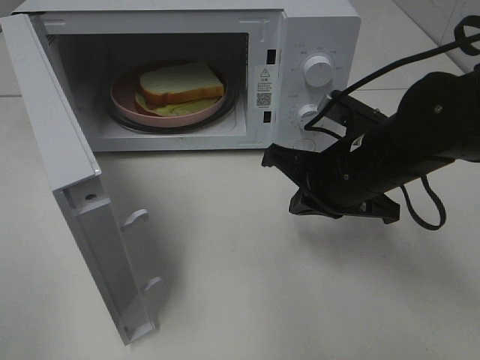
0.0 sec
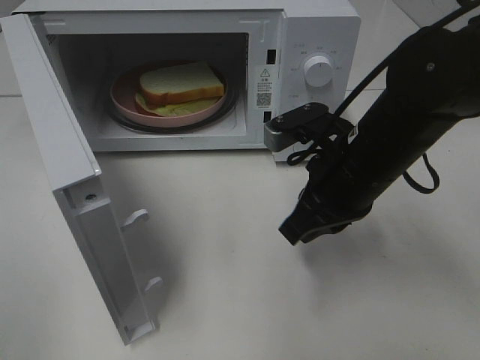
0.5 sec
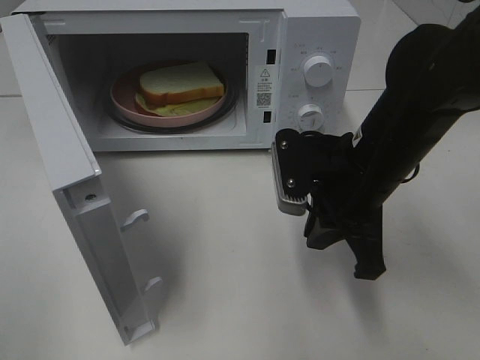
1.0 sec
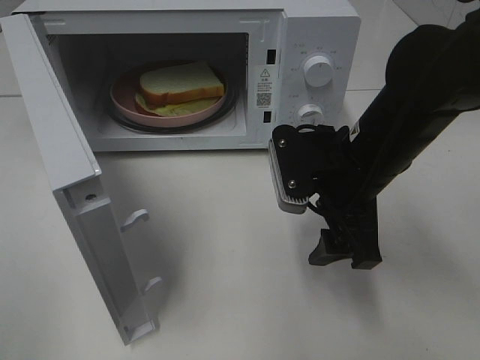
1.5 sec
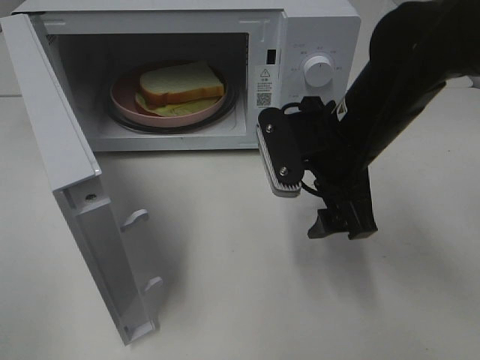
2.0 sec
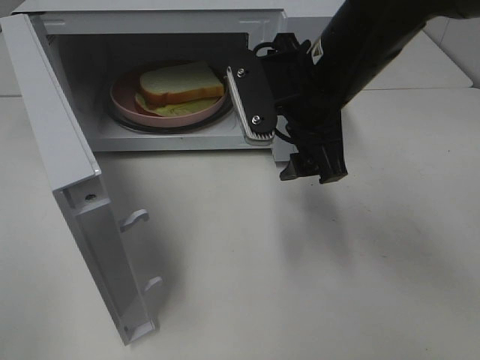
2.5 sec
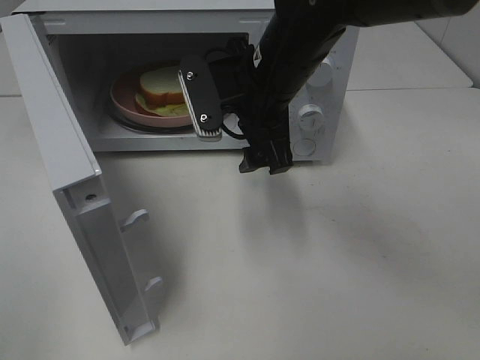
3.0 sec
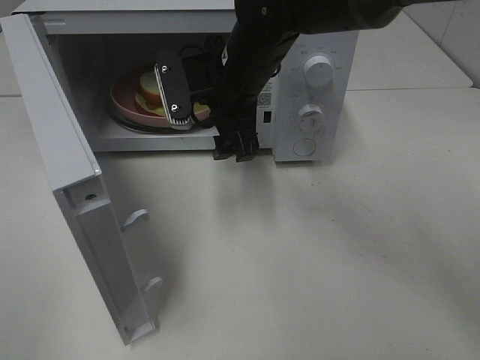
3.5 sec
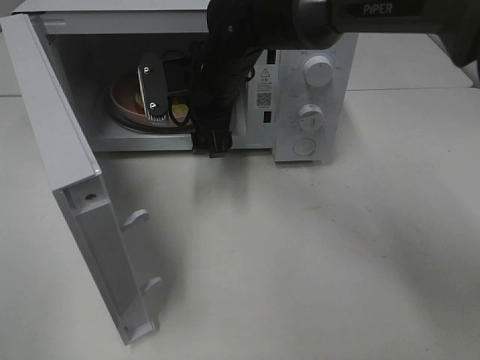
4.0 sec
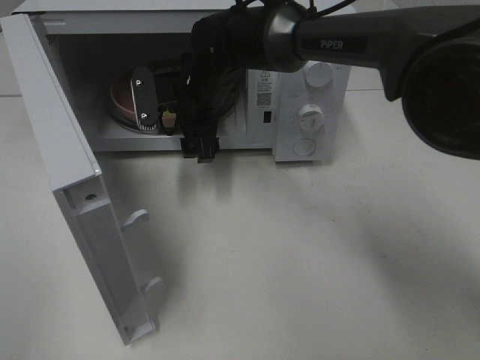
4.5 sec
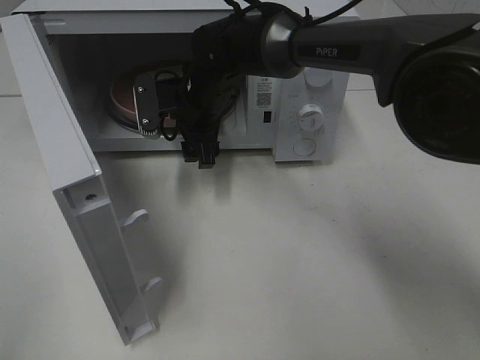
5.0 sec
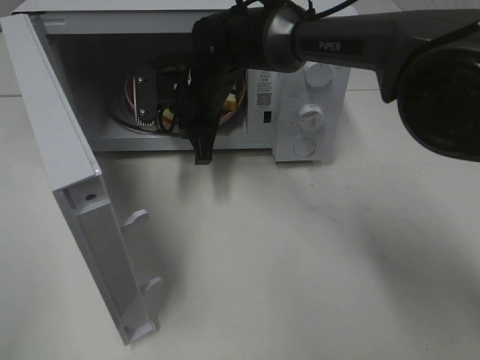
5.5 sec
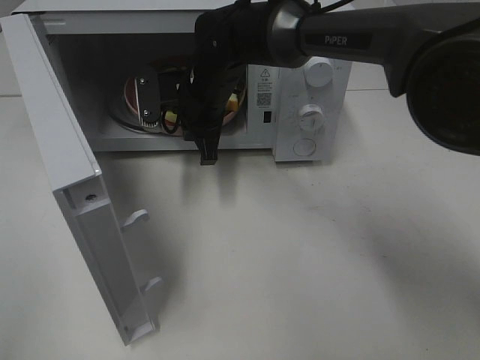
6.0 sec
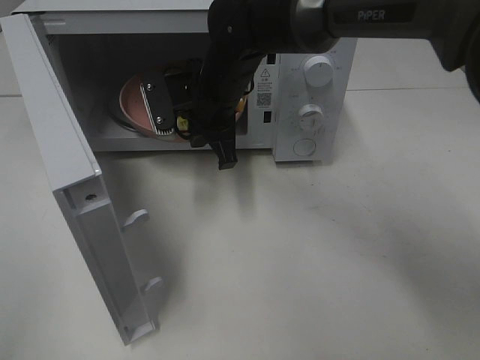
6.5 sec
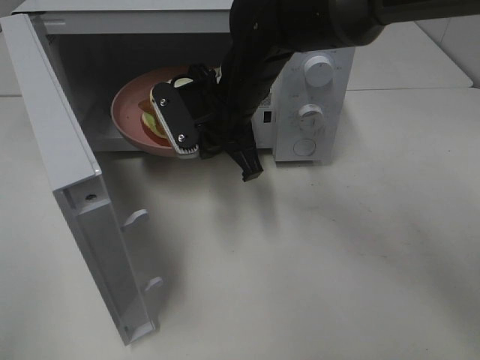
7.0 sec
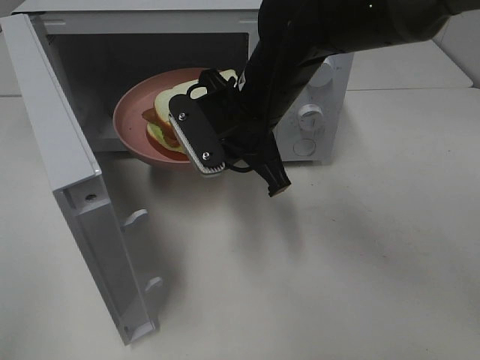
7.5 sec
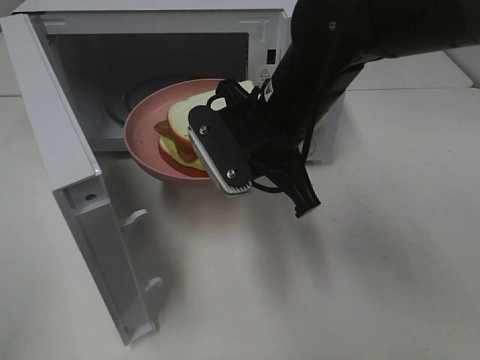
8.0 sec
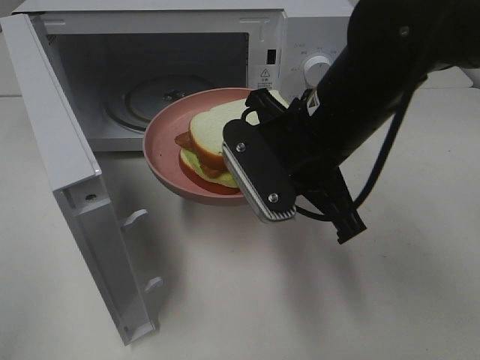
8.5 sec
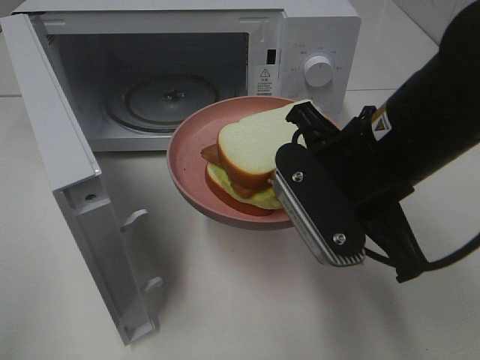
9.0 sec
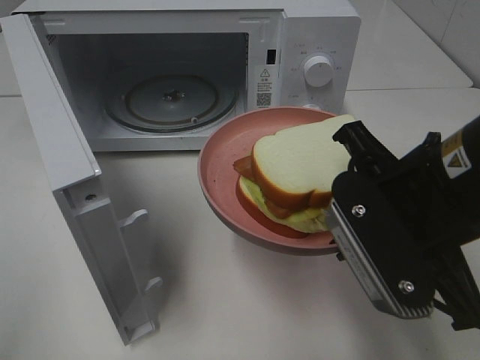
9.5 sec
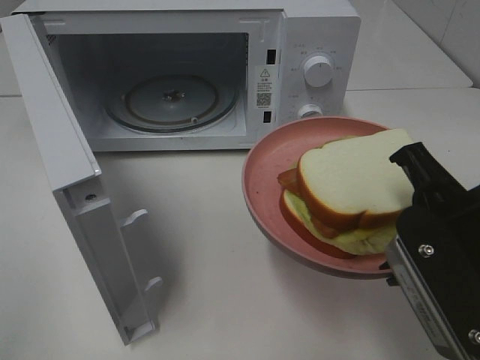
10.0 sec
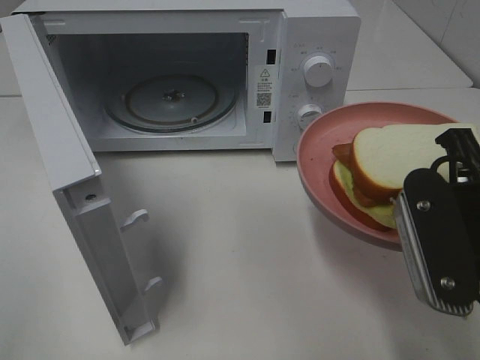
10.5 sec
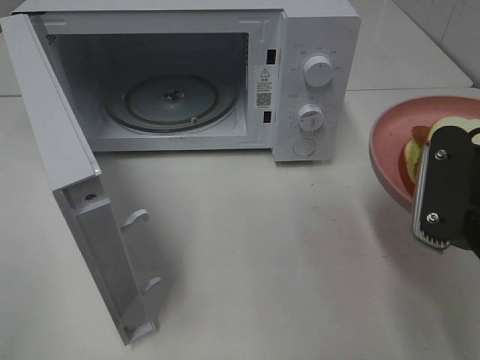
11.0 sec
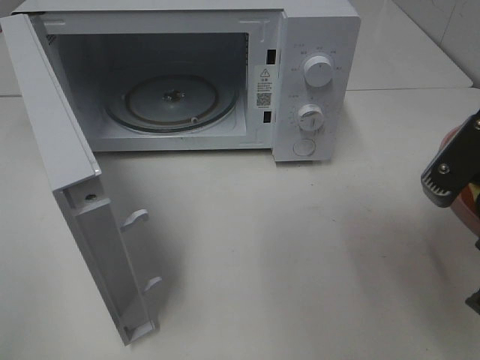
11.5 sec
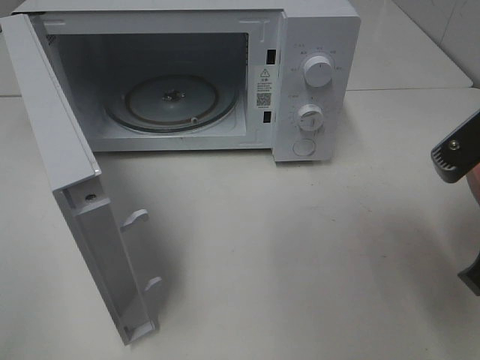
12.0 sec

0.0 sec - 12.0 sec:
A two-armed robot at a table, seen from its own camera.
Task of the whole recording: Heat Sandwich.
Step, 0.0 sec - 5.0 sec: Right hand: grab the plate with the sandwich.
0.0 sec - 2.0 sec: The right gripper opens.
2.0 sec - 4.0 sec: The right gripper heads to the left and forward, covering approximately 20 cm.
4.0 sec - 6.0 sec: The right gripper closes up.
6.0 sec - 8.0 sec: The right gripper is displaced backward and to the right by roughly 15 cm.
8.0 sec - 10.0 sec: The right gripper is displaced backward and to the right by about 20 cm.

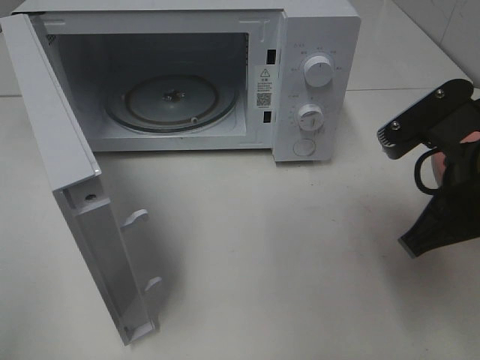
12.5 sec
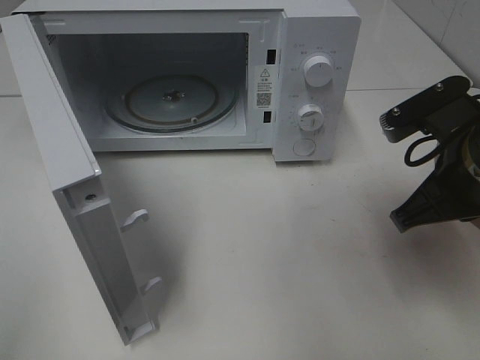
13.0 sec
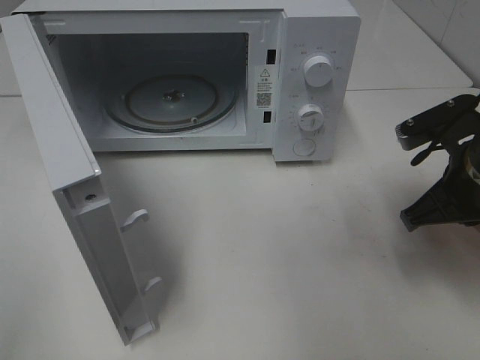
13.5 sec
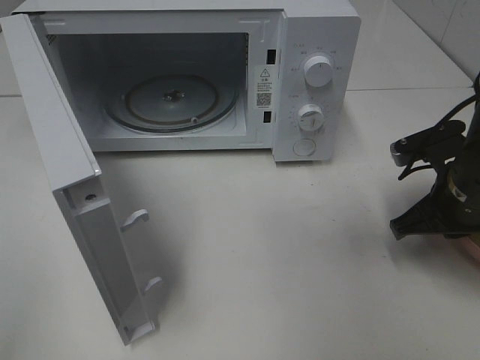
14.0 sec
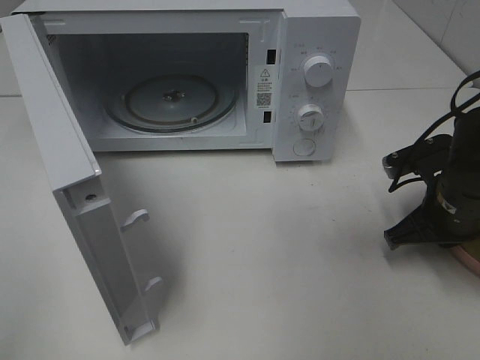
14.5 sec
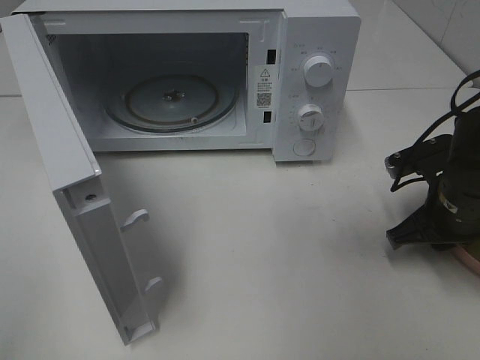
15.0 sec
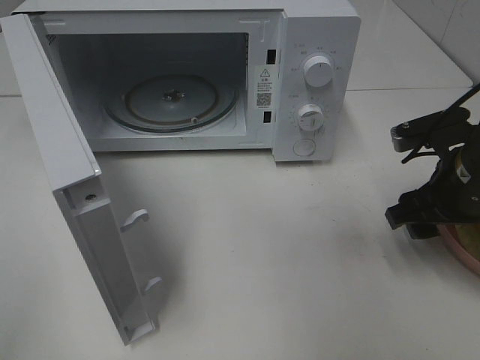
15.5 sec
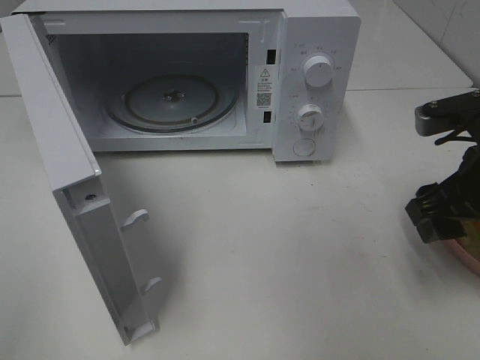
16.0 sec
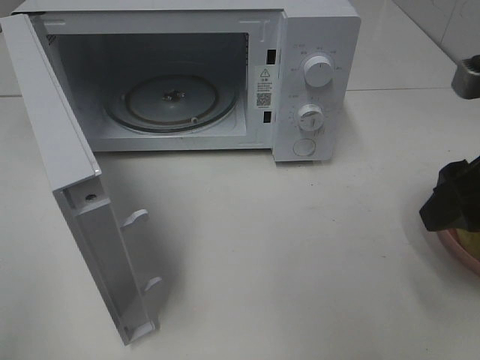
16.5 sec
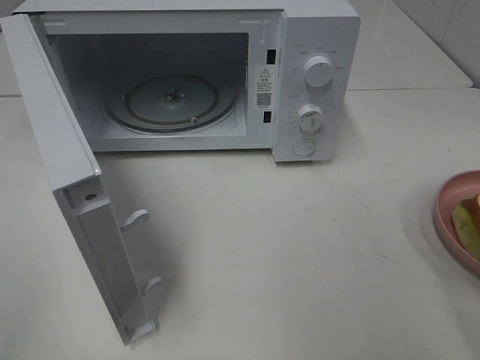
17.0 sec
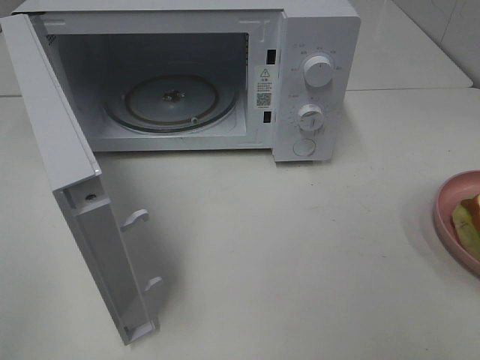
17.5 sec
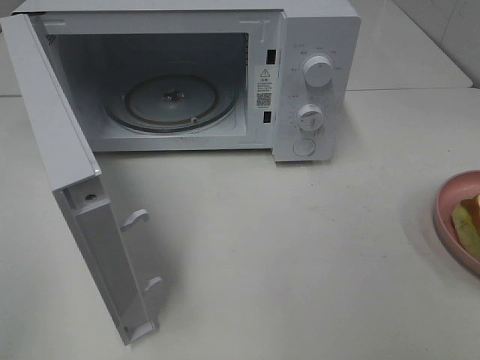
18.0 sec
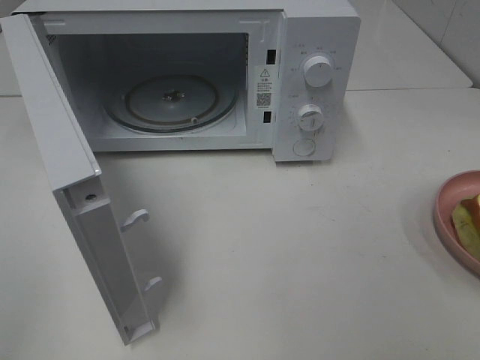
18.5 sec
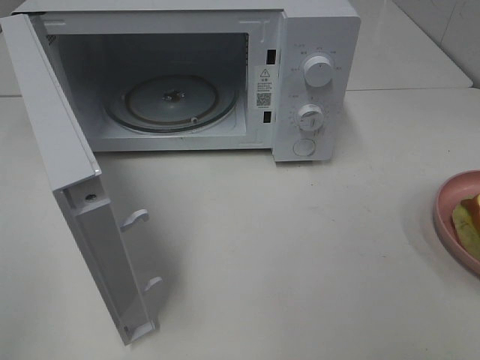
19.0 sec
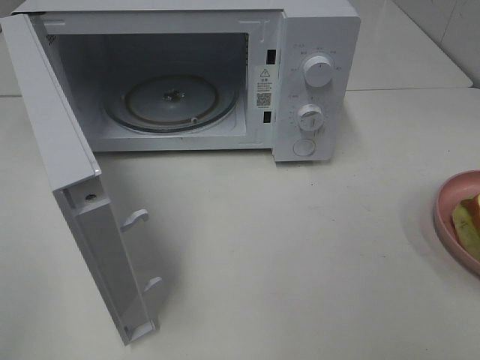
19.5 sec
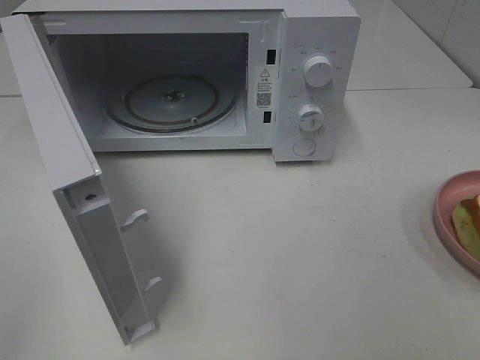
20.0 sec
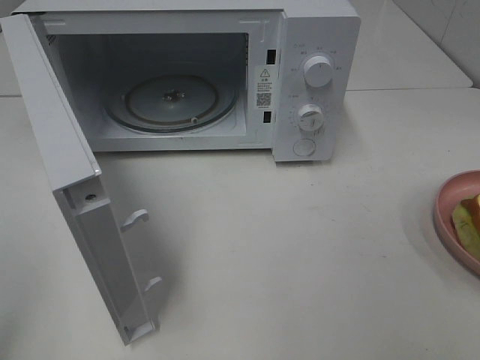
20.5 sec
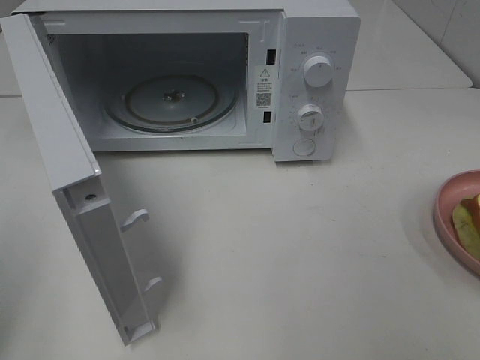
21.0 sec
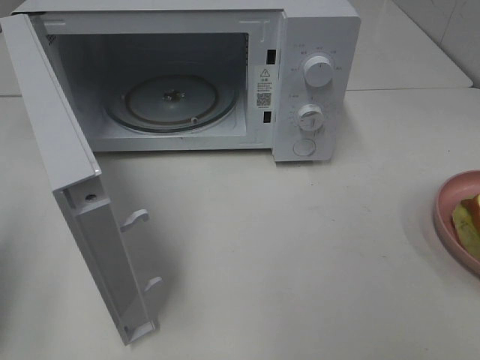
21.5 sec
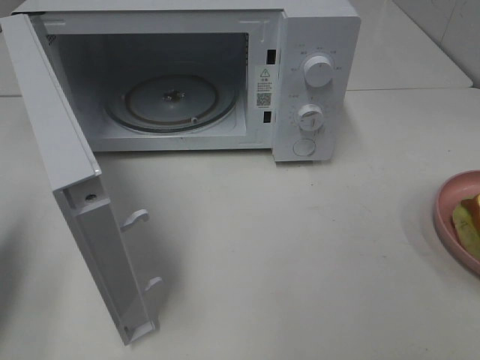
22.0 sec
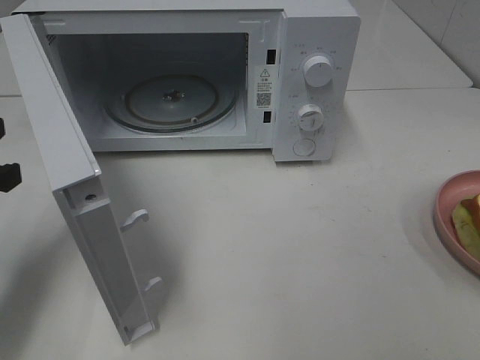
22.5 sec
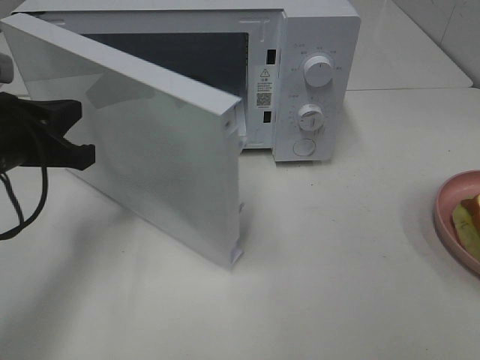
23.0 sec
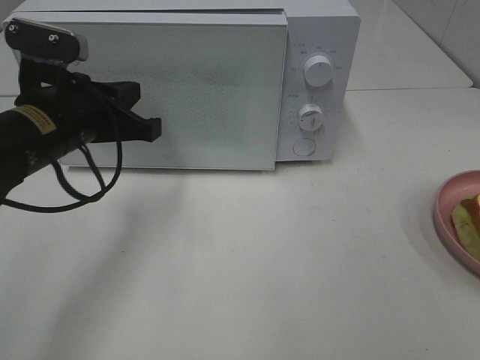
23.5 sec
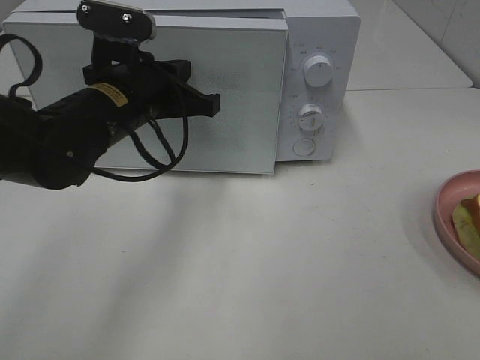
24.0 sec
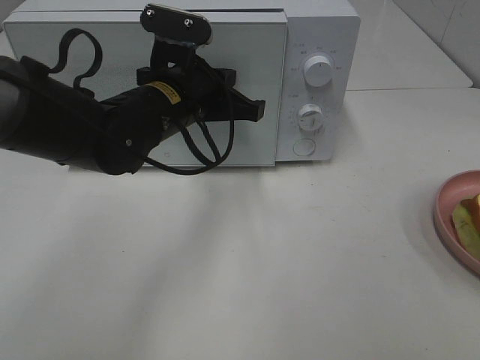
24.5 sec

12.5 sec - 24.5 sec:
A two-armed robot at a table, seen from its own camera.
Task of the whole recording: Heat Sandwich.
Step, 12.5 sec - 16.0 sec: Right hand: place the plate on the table.
12.5 sec - 14.5 sec: The right gripper shifts about 15 cm downward, forward and to the right.
14.5 sec - 16.5 sec: The right gripper goes roughly 20 cm upward and backward, and opens.
16.5 sec - 18.5 sec: The right gripper shifts some 20 cm backward.
20.5 sec - 22.5 sec: The left gripper shifts some 20 cm forward and downward, and closes.
22.5 sec - 24.5 sec: The left gripper heads to the right and forward, covering some 25 cm.

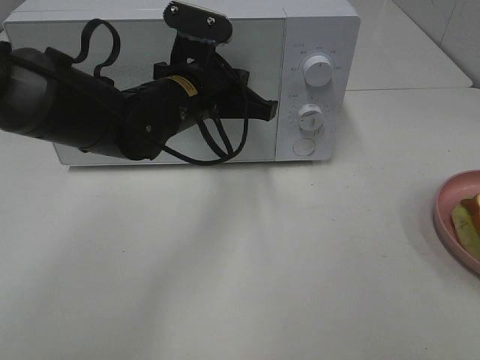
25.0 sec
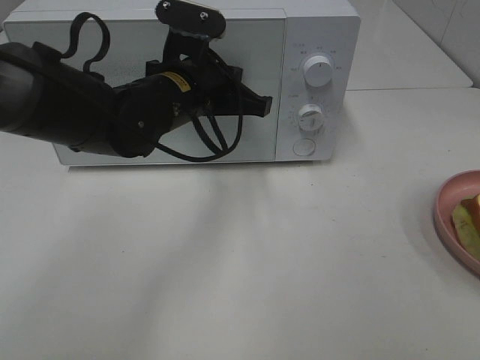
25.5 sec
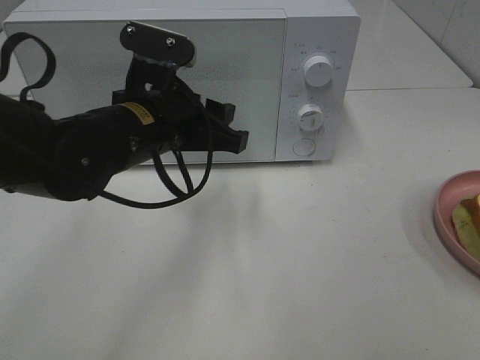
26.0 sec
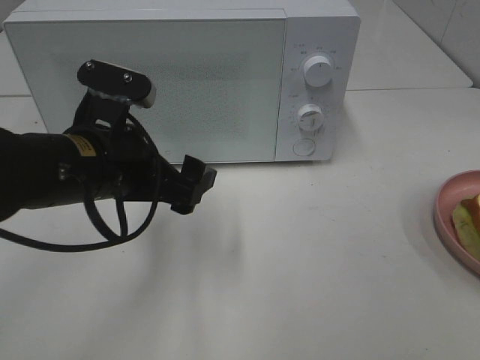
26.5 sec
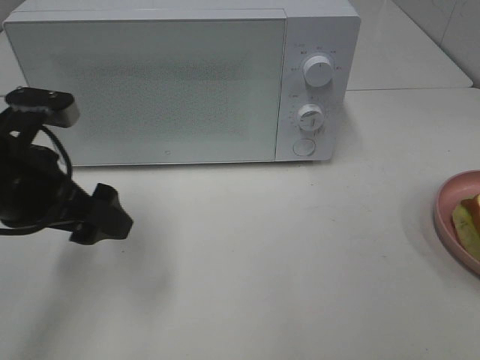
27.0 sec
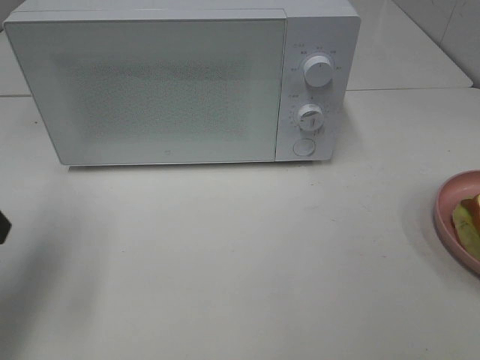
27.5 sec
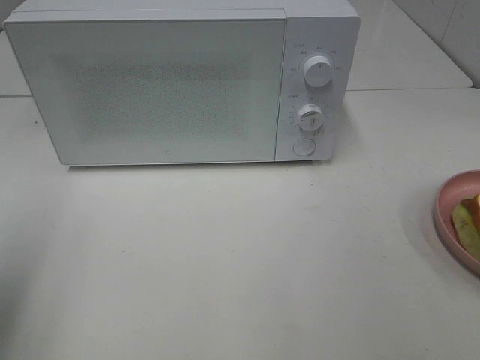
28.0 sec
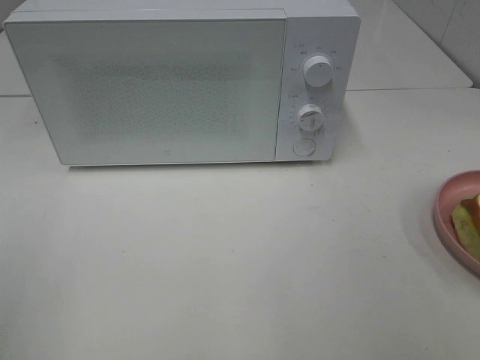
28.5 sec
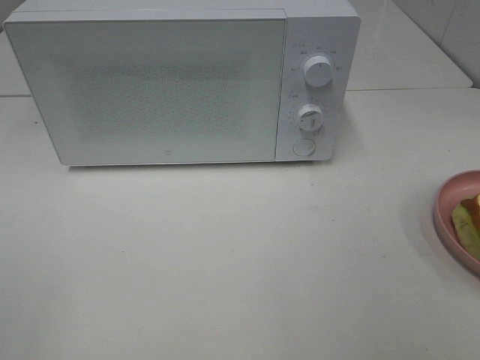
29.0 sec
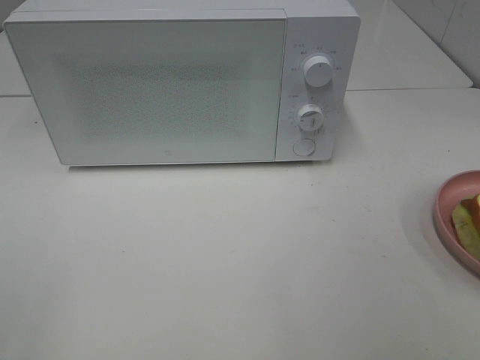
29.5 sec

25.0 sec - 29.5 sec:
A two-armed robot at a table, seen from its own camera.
Task of the whole recording: Heat Sandwich.
25.0 sec - 27.0 sec: The left gripper travels to the left and backward by about 20 cm, and opens its fingers.
27.0 sec - 29.5 sec: The left gripper shifts some 25 cm backward and to the left.
